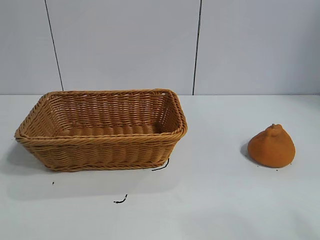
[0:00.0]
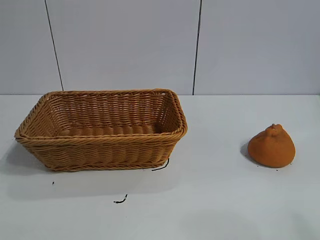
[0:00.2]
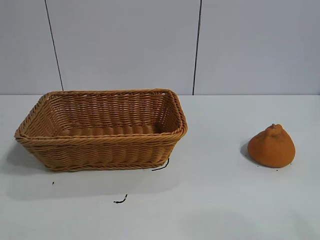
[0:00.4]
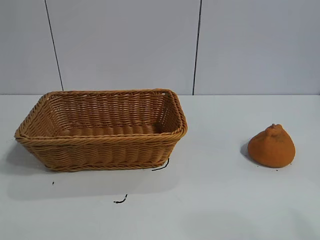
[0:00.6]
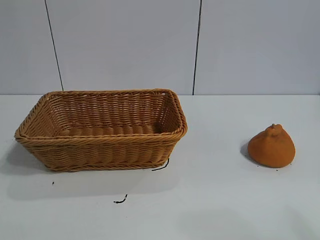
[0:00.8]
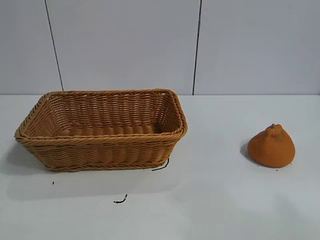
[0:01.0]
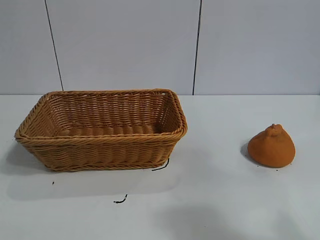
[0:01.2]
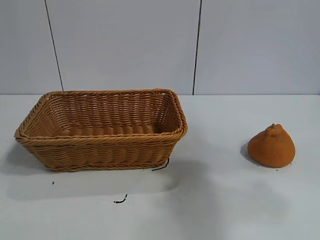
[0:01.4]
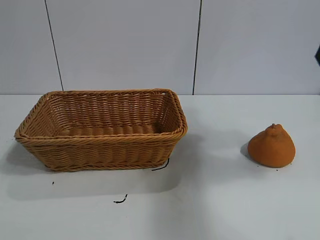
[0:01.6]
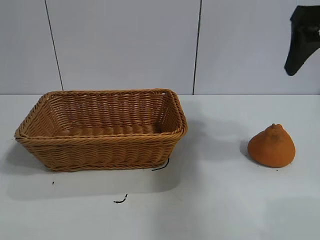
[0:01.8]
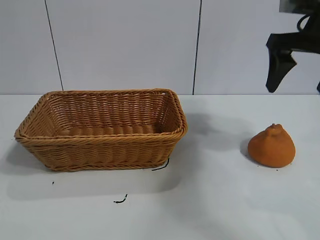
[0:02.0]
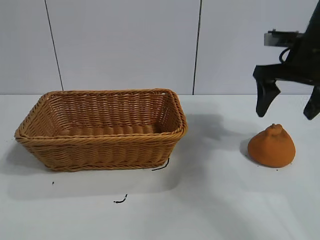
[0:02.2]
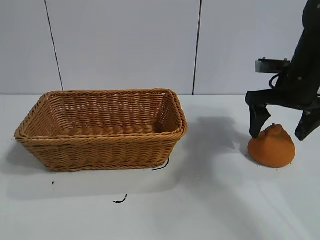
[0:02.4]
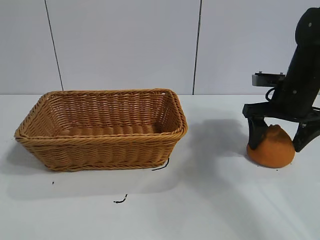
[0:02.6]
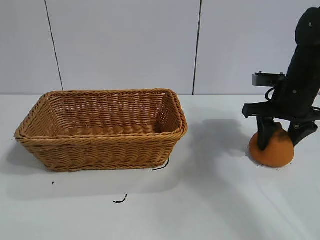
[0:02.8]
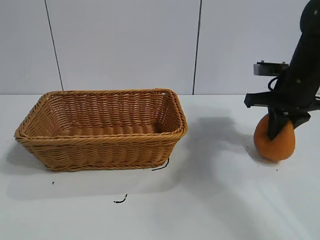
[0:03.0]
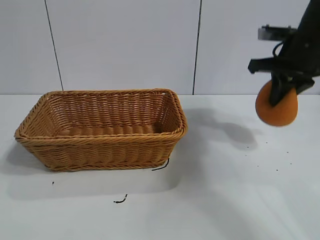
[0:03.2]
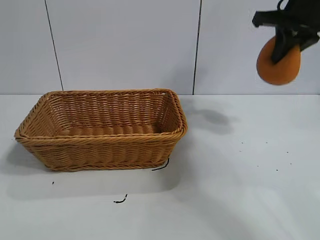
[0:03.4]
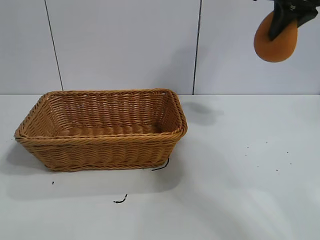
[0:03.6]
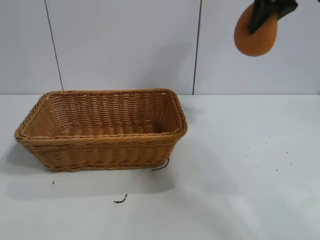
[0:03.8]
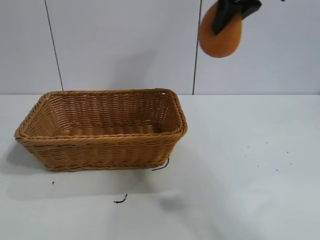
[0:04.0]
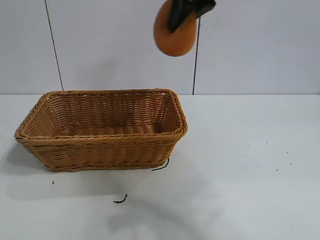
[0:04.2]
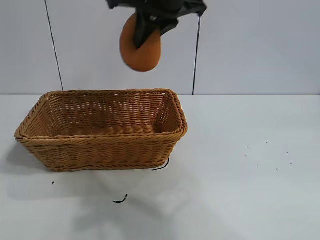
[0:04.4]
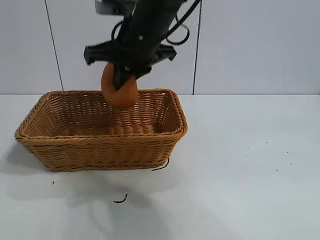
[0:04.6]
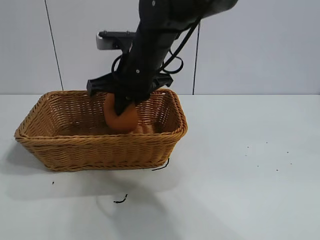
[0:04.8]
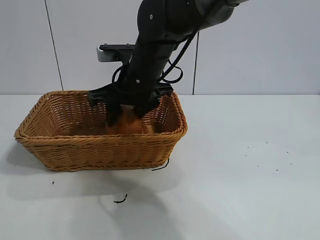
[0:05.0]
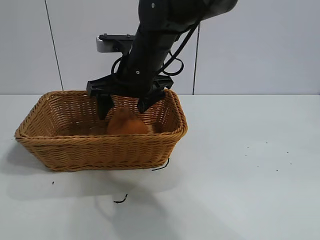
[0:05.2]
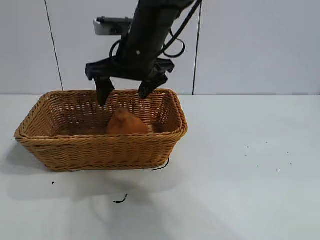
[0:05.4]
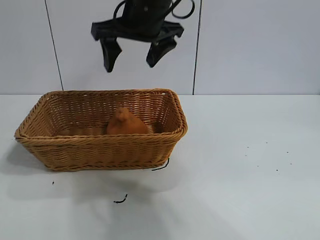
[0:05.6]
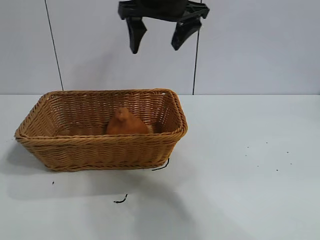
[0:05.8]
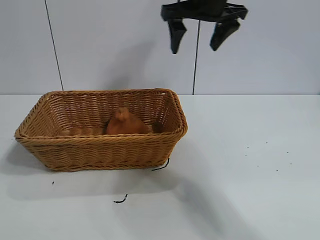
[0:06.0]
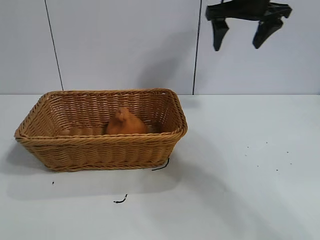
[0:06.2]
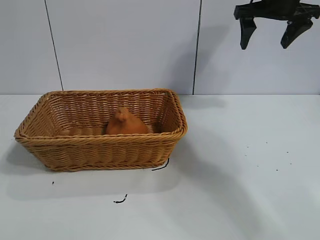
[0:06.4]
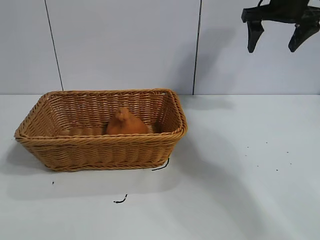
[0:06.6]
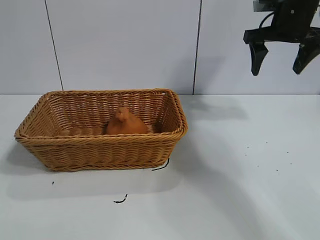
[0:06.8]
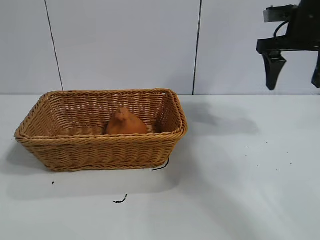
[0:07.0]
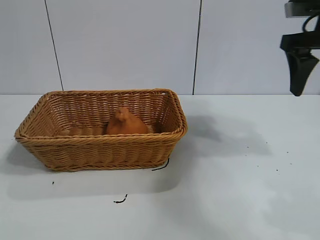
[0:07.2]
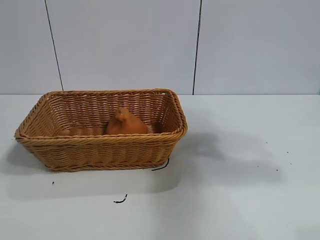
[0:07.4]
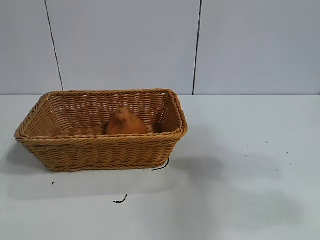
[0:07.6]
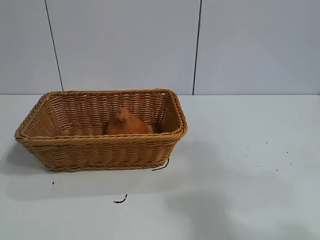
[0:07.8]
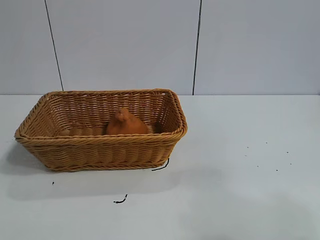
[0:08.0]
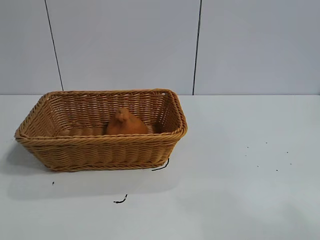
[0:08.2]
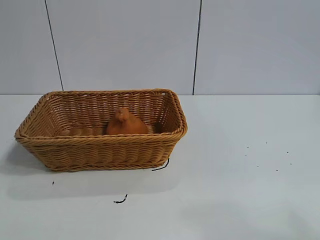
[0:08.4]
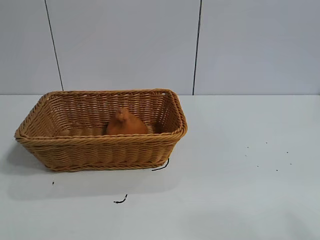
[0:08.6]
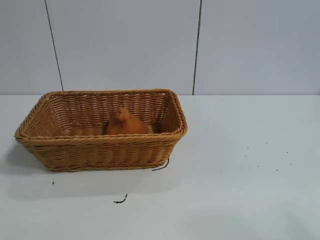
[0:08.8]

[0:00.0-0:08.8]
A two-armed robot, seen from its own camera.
Task of the whole recording: pick up the orange and put it into the basket.
Step, 0:00.8 to 0:03.0: Grasp the orange with right gripper.
Step, 0:03.2 to 0:05.2: Place the orange in the basket with right gripper.
